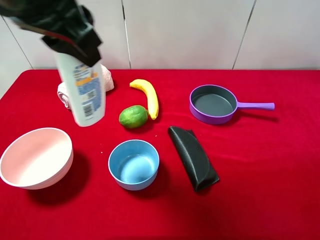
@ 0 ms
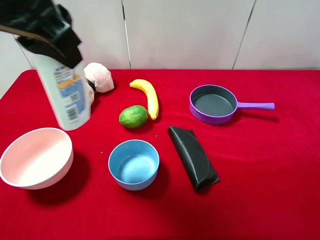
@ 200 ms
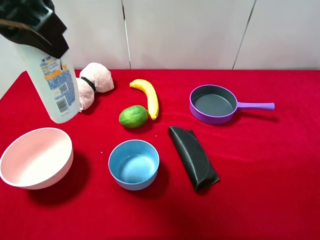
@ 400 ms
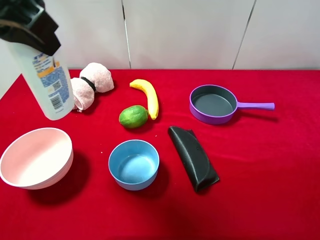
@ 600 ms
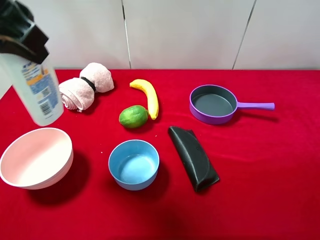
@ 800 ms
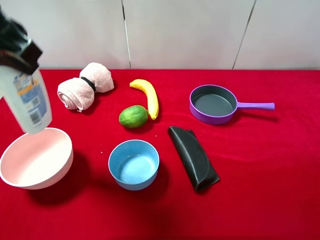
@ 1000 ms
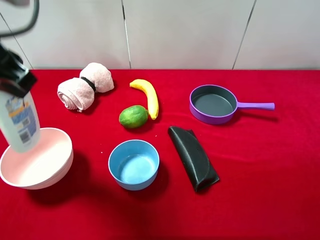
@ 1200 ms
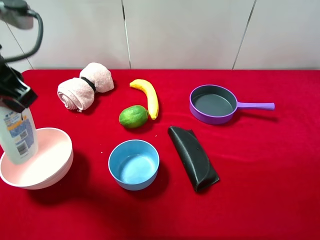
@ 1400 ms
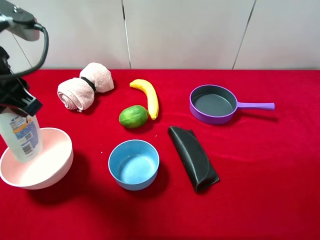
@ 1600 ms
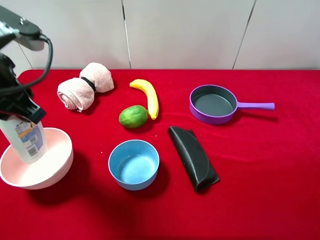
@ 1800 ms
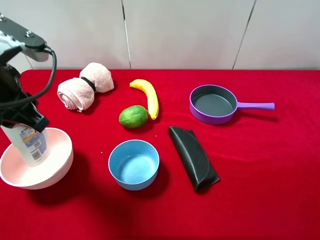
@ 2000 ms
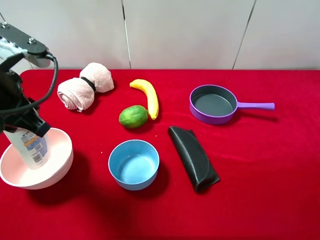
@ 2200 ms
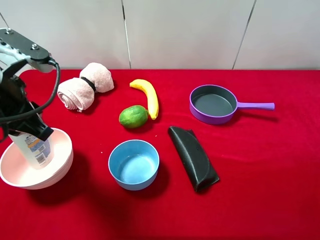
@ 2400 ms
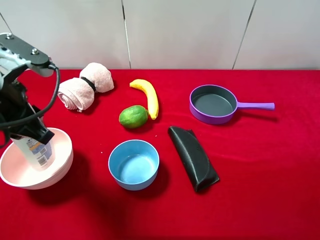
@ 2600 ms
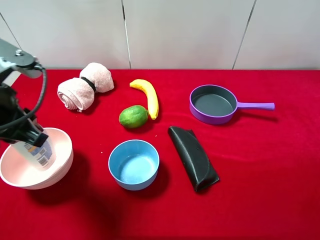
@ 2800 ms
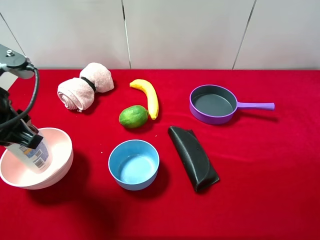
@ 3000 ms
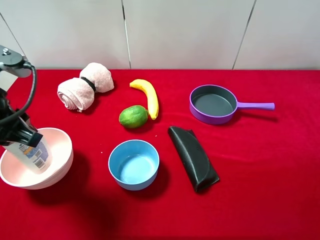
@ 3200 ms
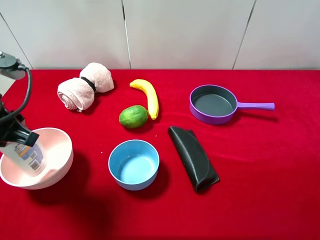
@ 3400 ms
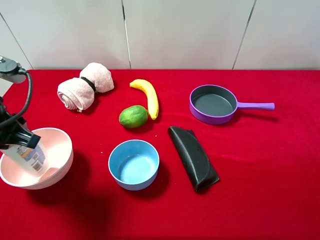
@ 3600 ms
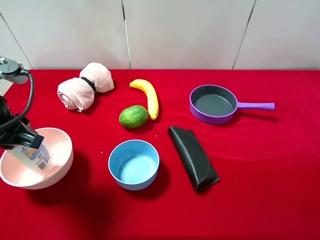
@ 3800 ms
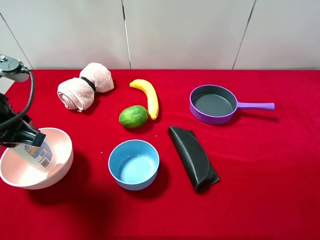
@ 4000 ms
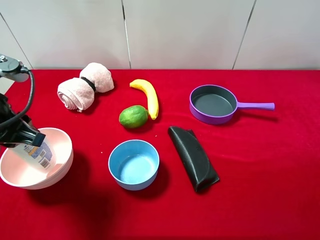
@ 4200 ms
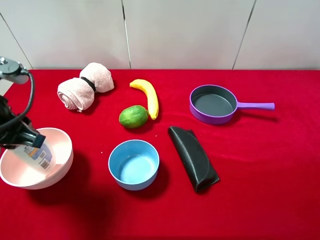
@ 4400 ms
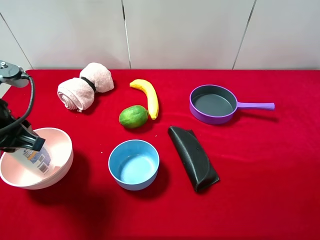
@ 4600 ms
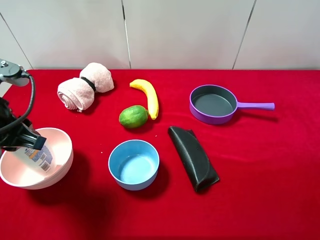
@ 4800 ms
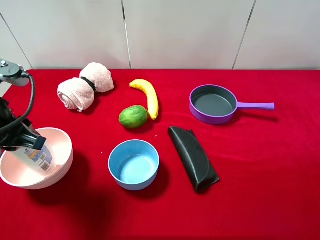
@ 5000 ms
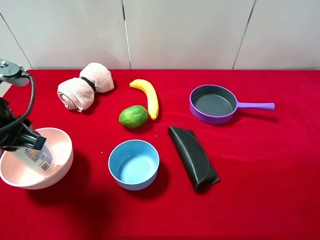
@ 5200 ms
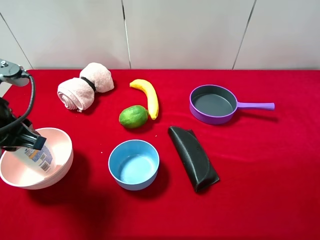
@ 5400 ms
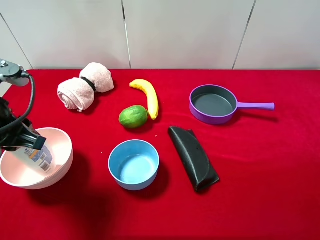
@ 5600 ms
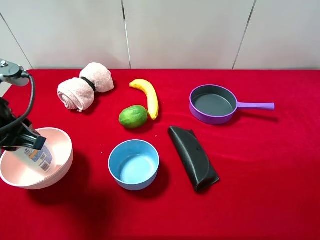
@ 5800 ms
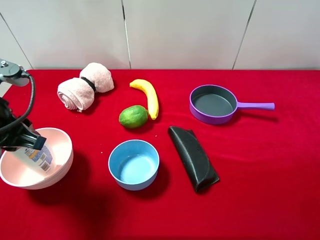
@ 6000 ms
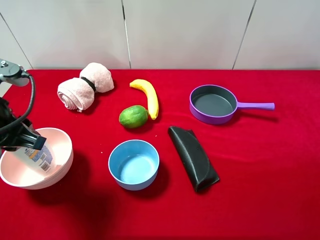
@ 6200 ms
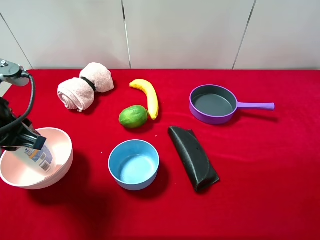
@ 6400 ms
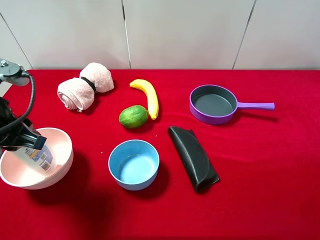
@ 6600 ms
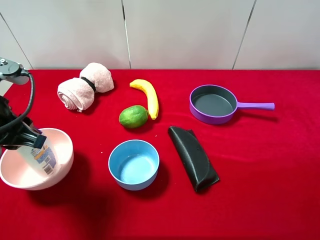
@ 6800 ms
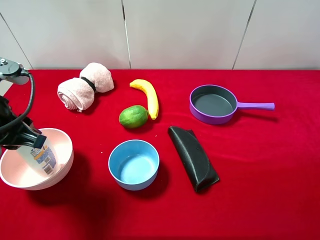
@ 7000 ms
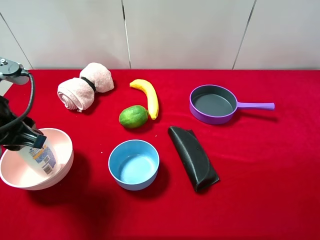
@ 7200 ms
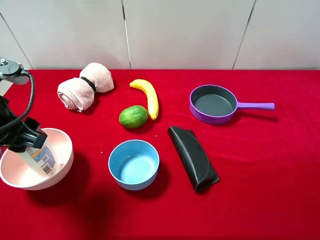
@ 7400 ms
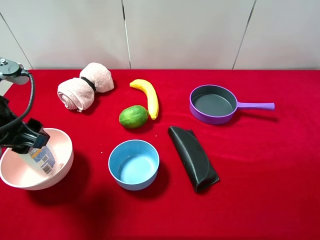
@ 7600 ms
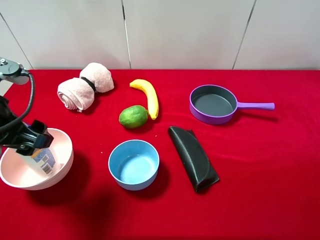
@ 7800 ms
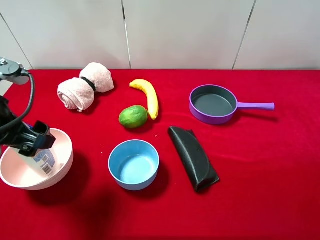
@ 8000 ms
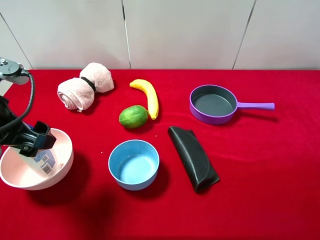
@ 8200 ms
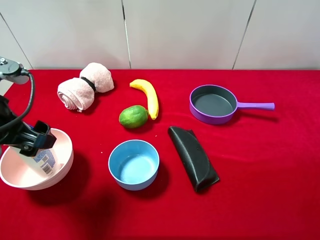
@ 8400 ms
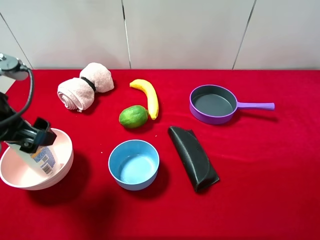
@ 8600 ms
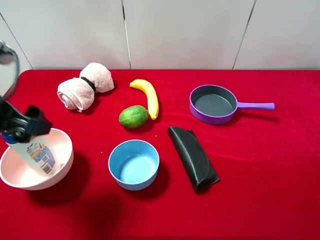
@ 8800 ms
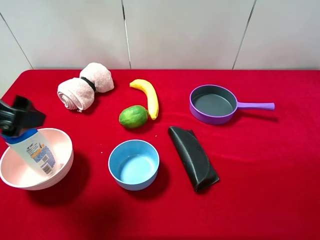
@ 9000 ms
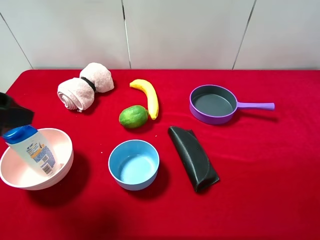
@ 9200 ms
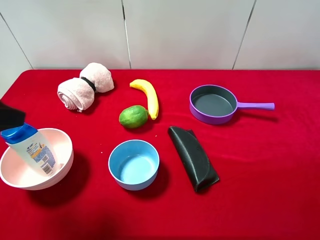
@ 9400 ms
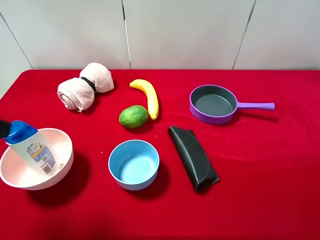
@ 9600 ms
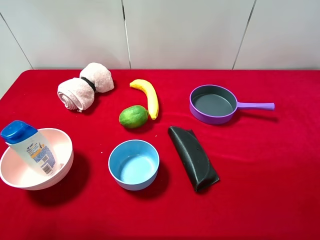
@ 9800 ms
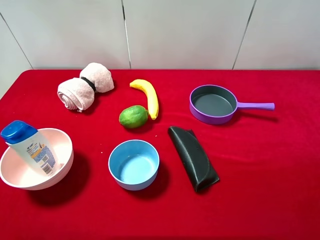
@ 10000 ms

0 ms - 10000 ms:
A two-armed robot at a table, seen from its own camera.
Task of the whole recording: pick up an item with a gripper and place it in a random container on the desktop.
0 ms - 1400 ms: The left gripper moves to the left and downward, about 10 cm.
1400 ms - 2800 ms: The left gripper shifts approximately 5 cm downward.
2800 ms - 4200 ms: The grippers make only small movements.
4200 ms - 7200 ms: The two grippers keep their place.
7200 ms - 8600 ms: The left gripper opens.
8600 ms - 10000 ms: The left gripper is displaced backward, to the left and upward by approximately 15 cm.
